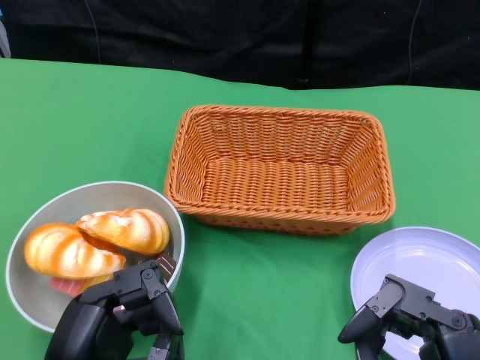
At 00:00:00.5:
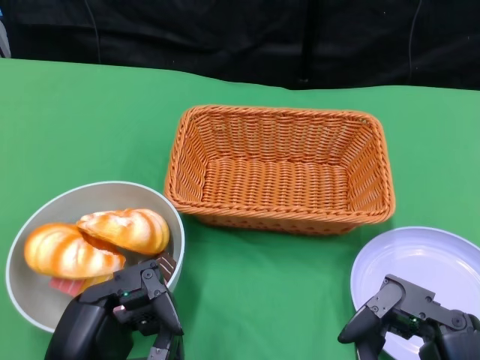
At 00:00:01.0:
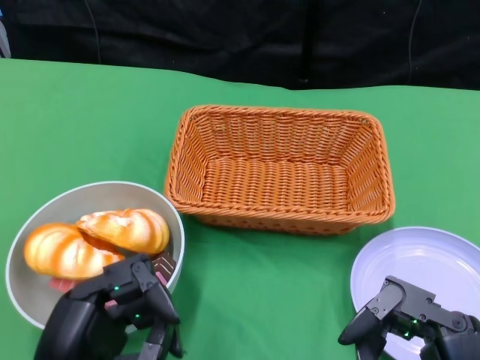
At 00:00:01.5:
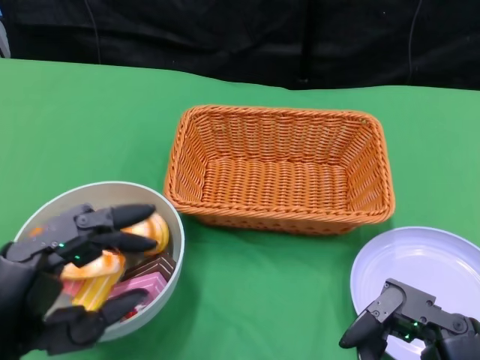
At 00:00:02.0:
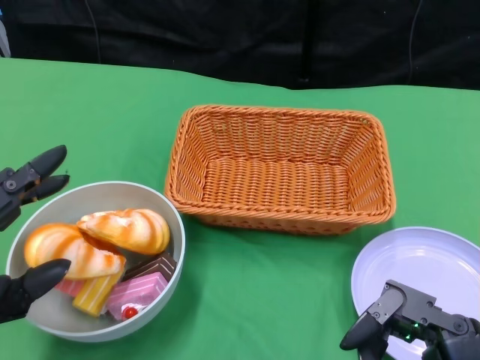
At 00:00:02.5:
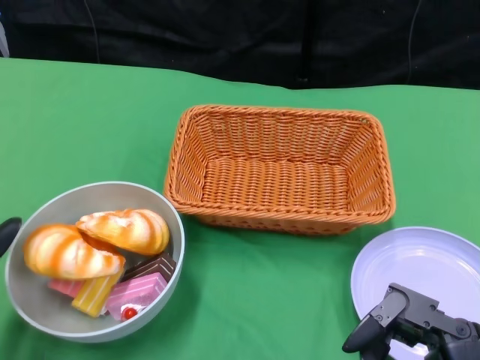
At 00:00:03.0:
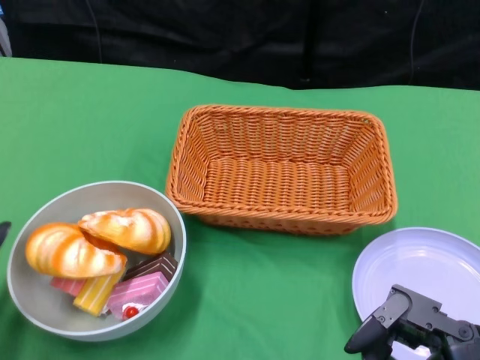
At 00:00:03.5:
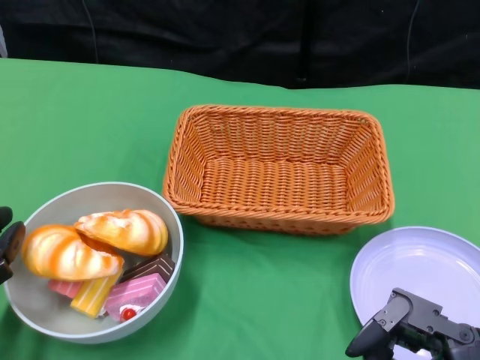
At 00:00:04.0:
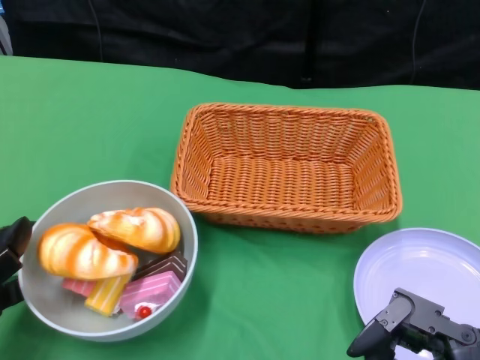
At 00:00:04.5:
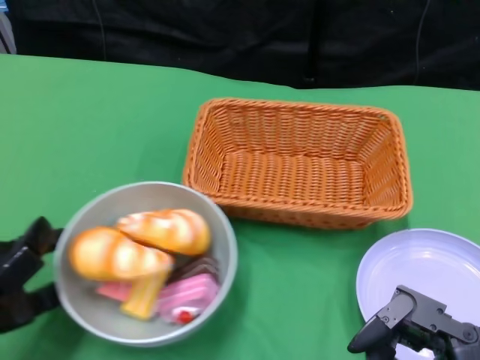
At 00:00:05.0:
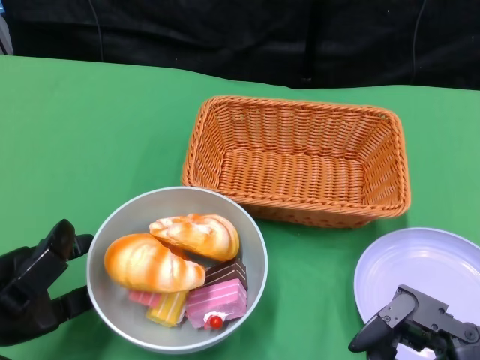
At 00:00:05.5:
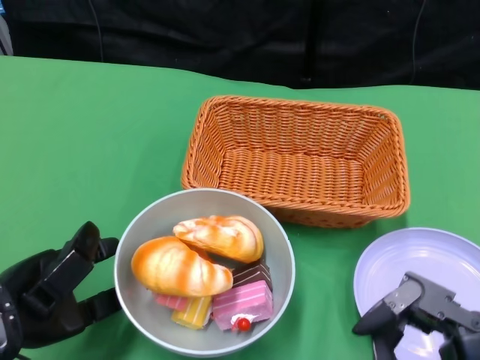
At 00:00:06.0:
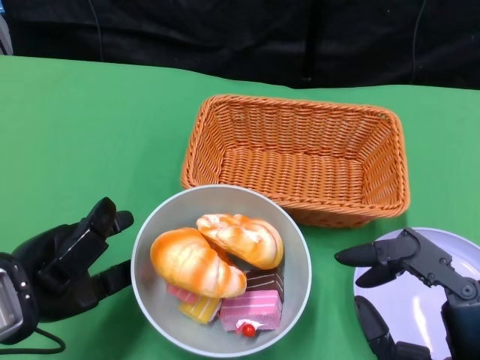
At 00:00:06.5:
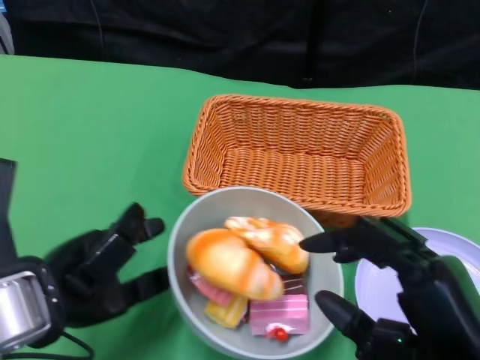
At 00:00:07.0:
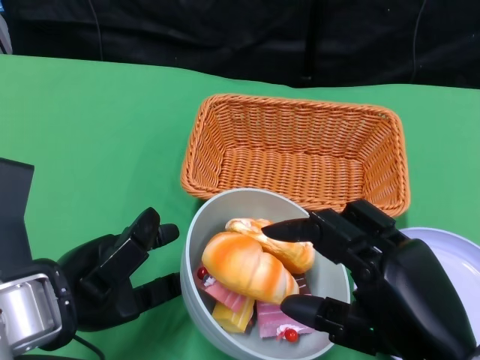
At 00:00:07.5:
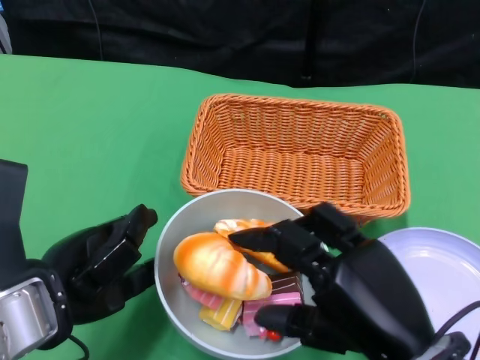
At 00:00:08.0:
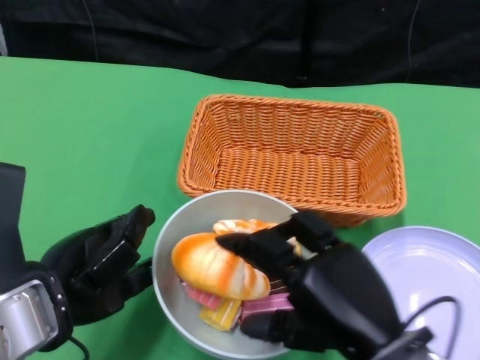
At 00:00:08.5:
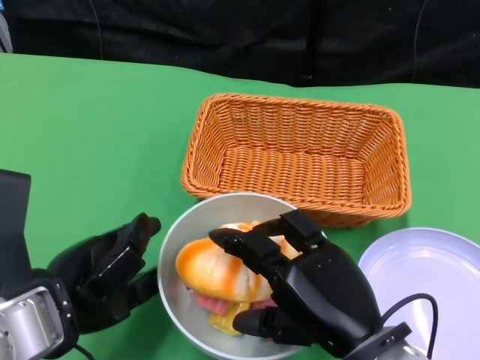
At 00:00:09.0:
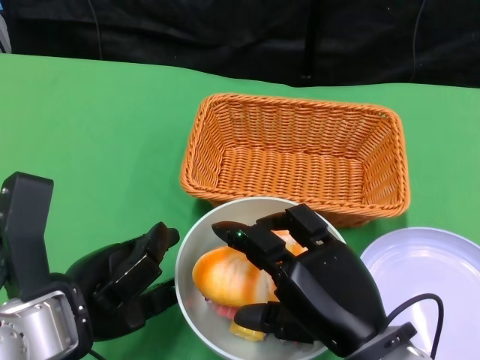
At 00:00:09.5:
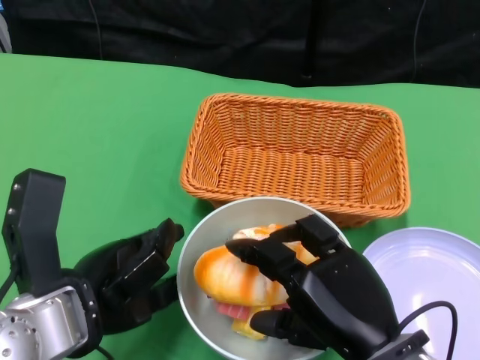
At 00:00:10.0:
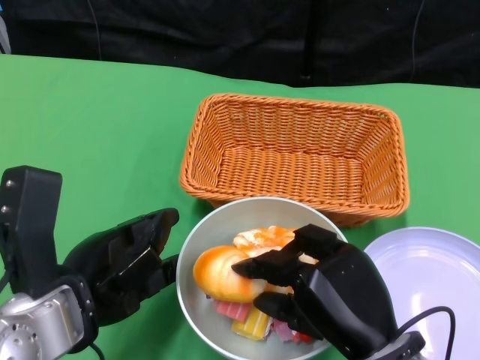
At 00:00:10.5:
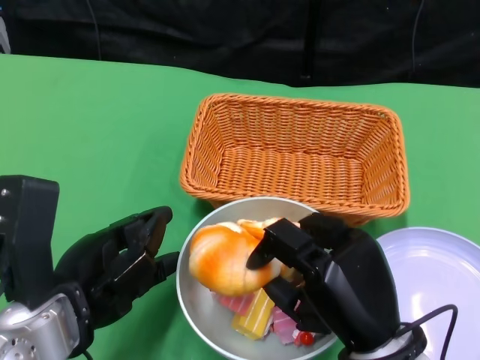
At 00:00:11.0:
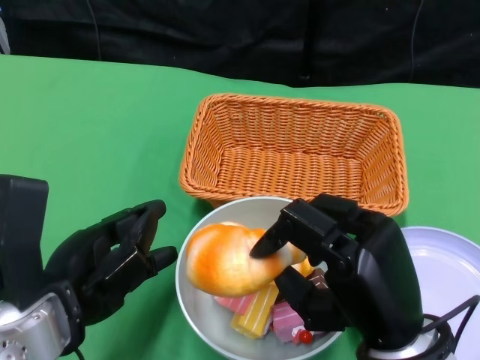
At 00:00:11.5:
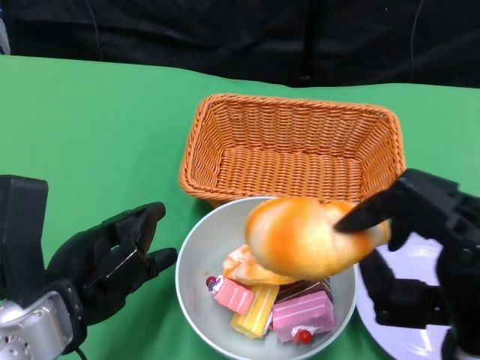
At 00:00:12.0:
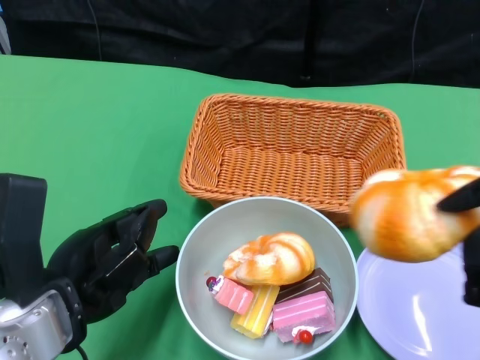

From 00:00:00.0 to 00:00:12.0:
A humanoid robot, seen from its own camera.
Step, from 00:00:00.0 to 00:00:06.0: Push the bowl to the center of the table using the left gripper.
From 00:00:02.0 to 00:00:04.0: The left hand is displaced forward by about 5 cm.
From 00:00:04.0 to 00:00:06.0: The left hand moves to the right, roughly 10 cm.
From 00:00:06.0 to 00:00:08.0: The right hand heads forward and to the left, covering approximately 5 cm.
From 00:00:10.0 to 00:00:12.0: The right hand travels to the right and upward by about 15 cm.

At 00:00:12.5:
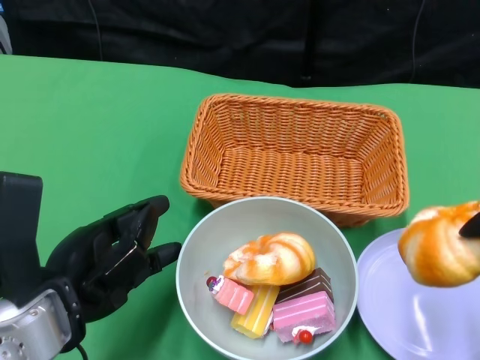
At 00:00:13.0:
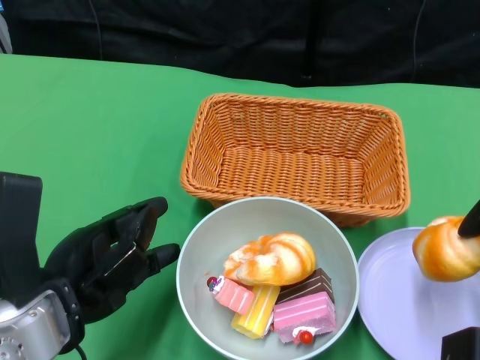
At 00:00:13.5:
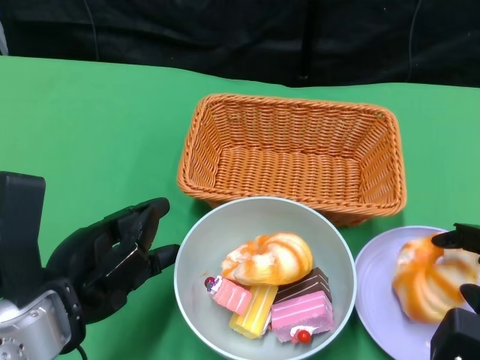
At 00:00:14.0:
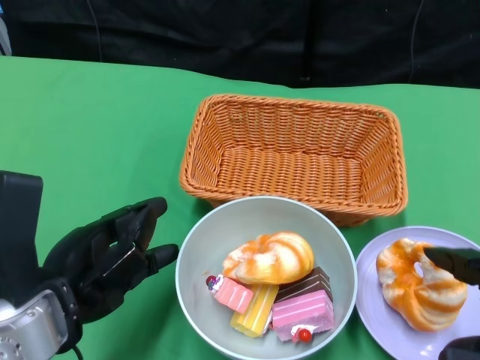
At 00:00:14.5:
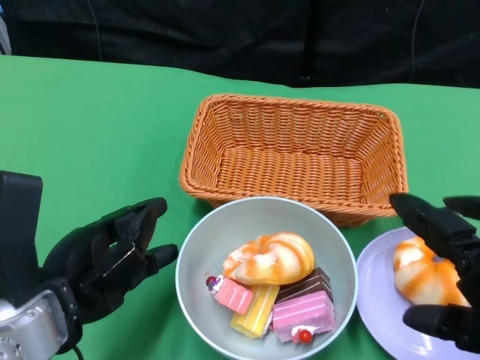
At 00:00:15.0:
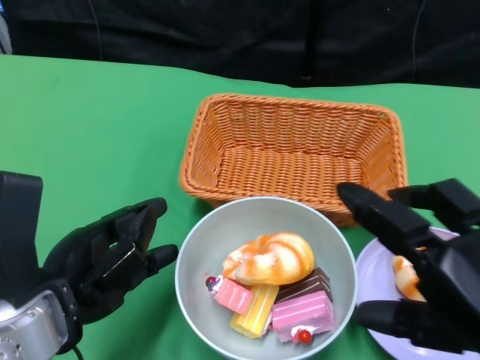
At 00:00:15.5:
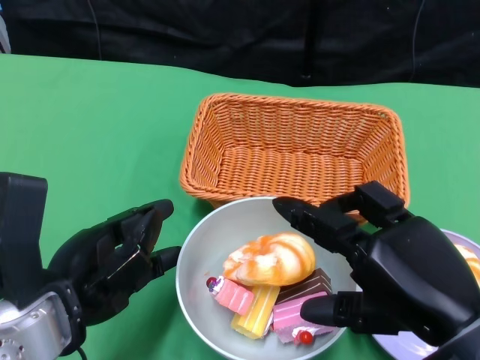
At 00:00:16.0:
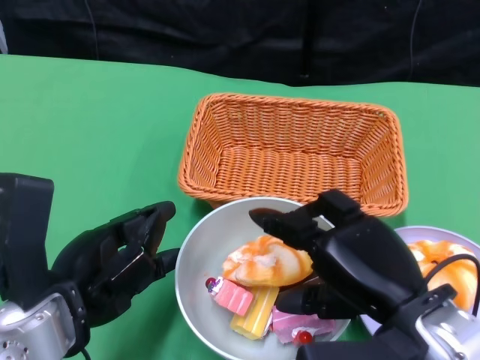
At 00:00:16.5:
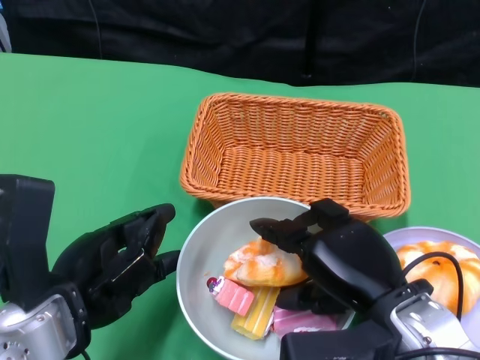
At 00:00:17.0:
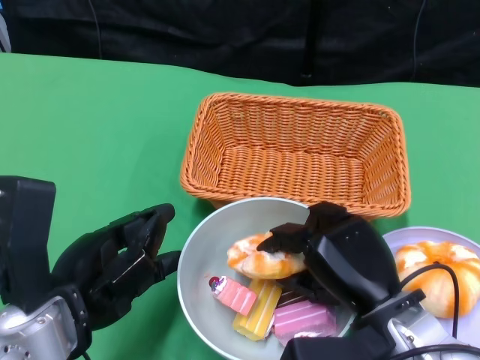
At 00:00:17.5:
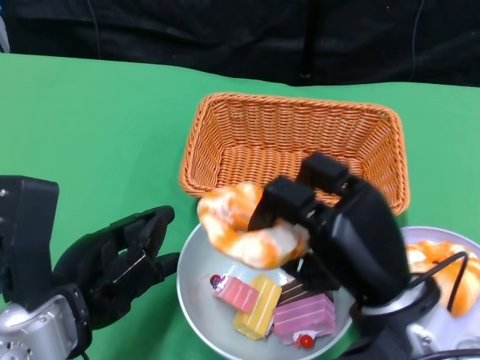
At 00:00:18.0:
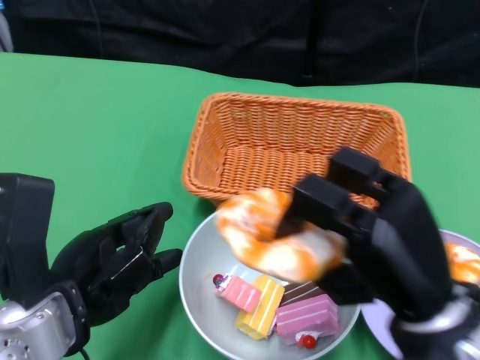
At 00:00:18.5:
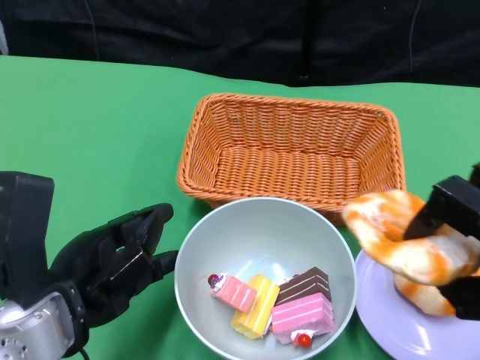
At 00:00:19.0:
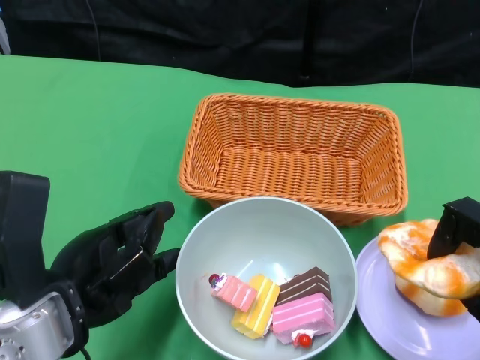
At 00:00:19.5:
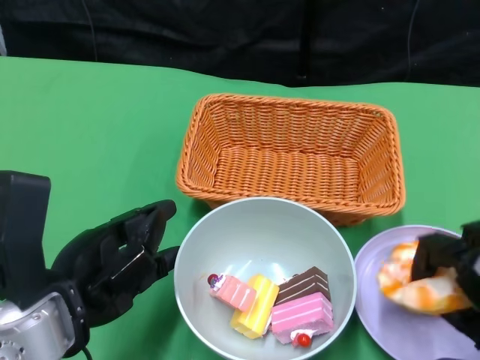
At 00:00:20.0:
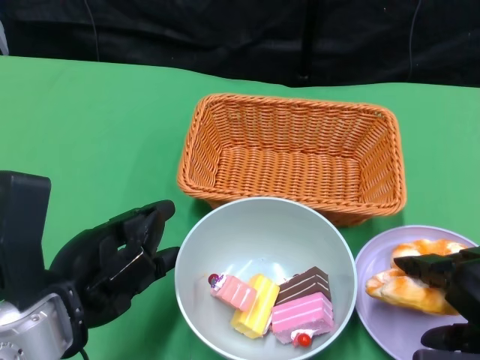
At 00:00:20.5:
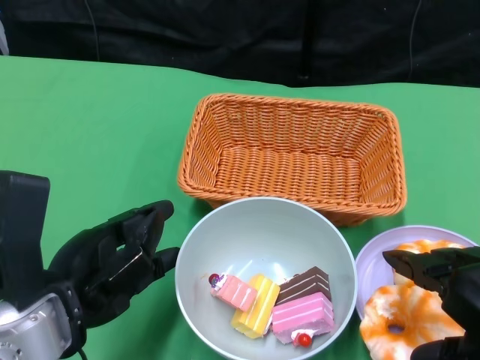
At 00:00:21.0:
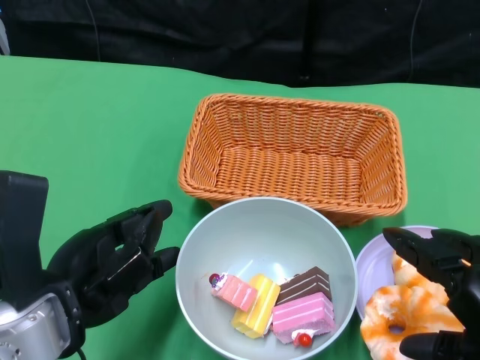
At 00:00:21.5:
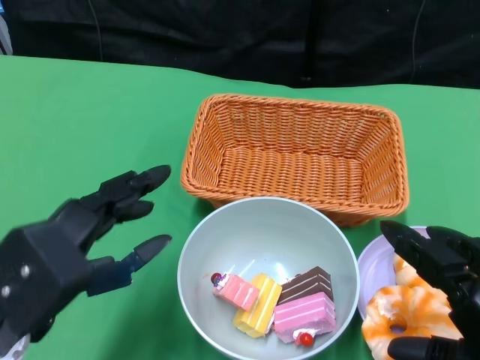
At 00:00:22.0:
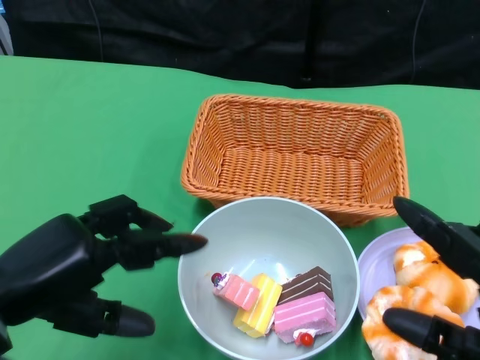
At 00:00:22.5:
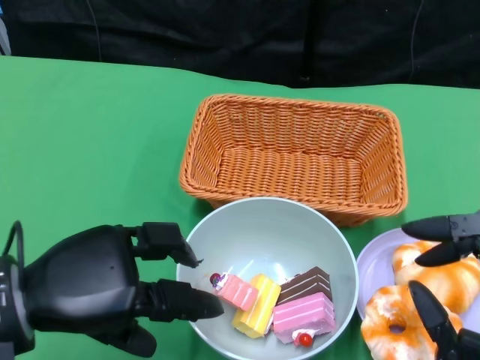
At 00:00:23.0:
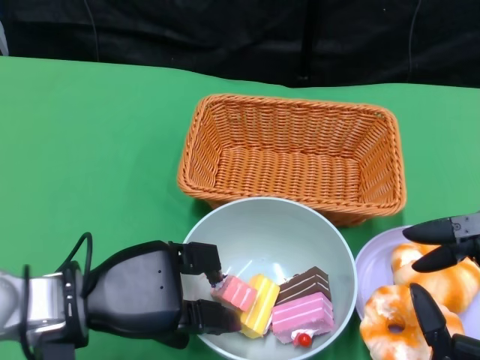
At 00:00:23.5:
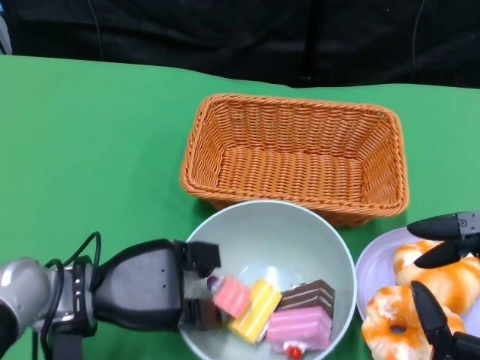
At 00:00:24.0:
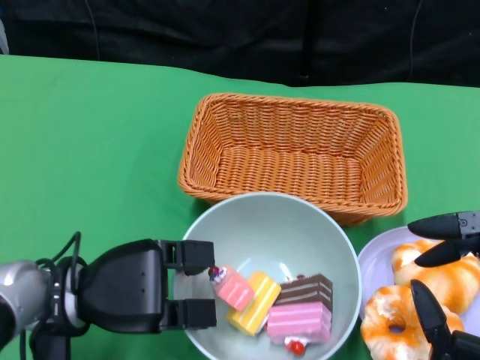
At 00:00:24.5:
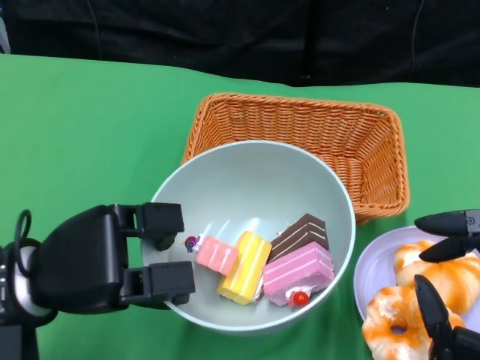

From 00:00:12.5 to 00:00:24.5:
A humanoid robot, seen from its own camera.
Step, from 00:00:12.5 to 00:00:20.5: Pick up the bread with the right gripper and place it on the plate.
Step, from 00:00:21.0 to 00:00:23.5: Grasp the bowl with the left gripper.
From 00:00:12.5 to 00:00:14.5: The right hand goes some 5 cm upward.
From 00:00:14.5 to 00:00:16.5: The right hand moves forward, downward and to the left, approximately 15 cm.
From 00:00:16.5 to 00:00:18.5: The right hand travels to the right and backward by roughly 10 cm.

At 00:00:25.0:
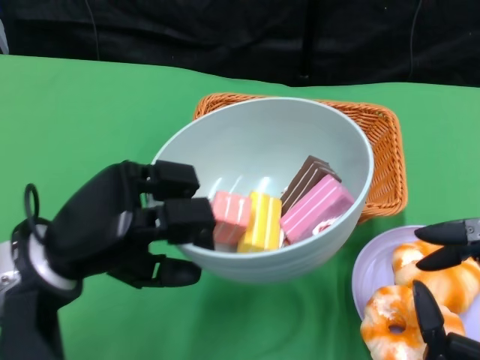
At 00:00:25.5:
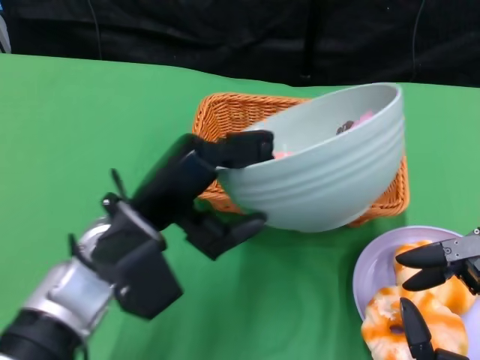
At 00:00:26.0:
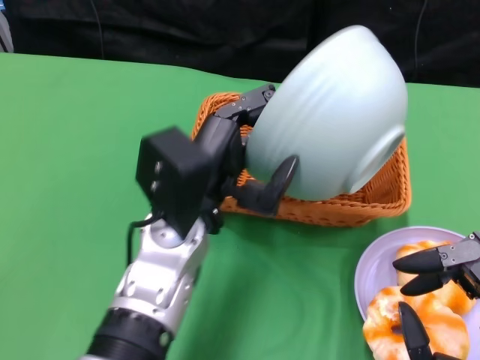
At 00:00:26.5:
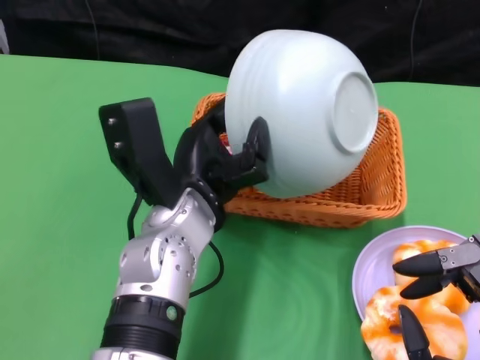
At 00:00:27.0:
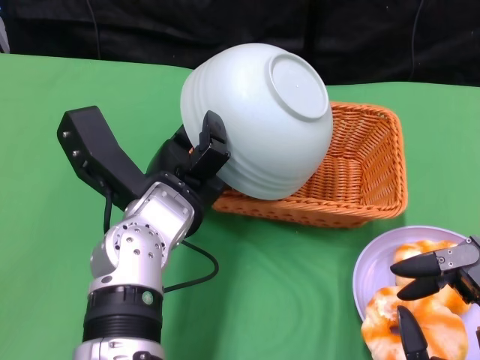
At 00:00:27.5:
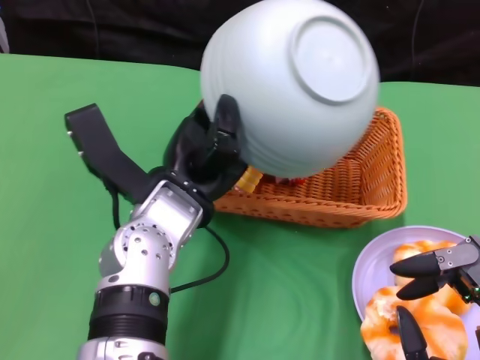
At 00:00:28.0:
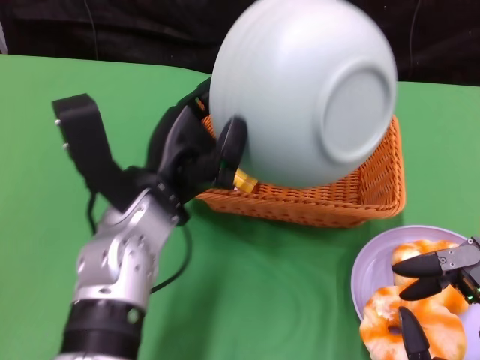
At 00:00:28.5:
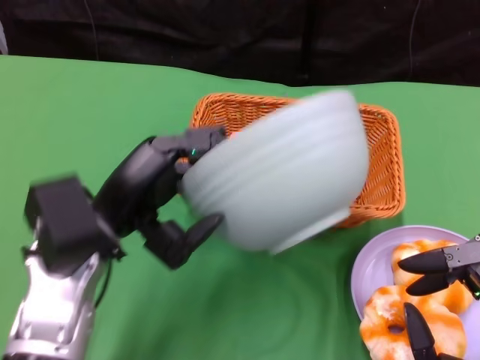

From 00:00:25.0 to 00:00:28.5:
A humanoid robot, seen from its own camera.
Step, from 00:00:25.0 to 00:00:27.5: Pour the cake into the basket with the left gripper.
From 00:00:25.0 to 00:00:27.0: The left hand shifts roughly 10 cm to the right and forward.
From 00:00:27.0 to 00:00:28.5: The left hand goes roughly 10 cm to the left.
